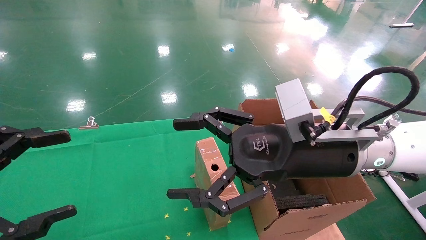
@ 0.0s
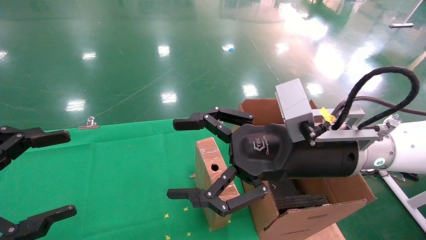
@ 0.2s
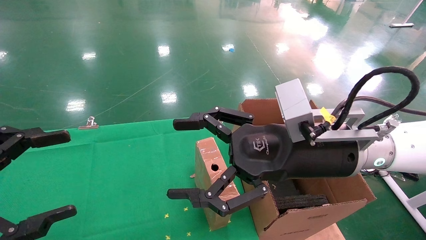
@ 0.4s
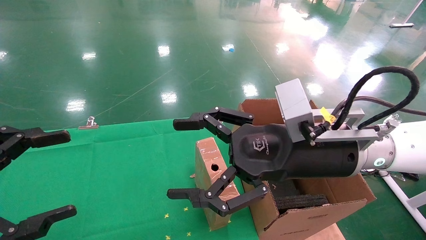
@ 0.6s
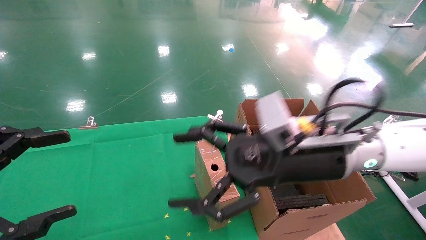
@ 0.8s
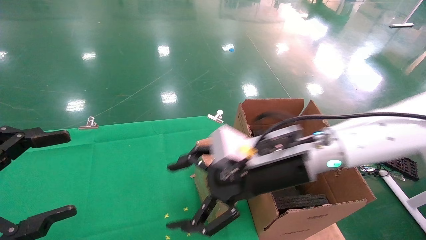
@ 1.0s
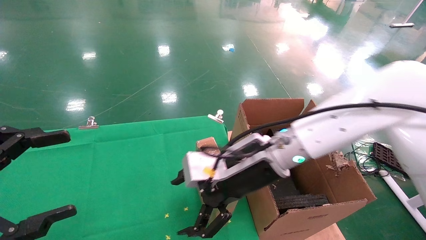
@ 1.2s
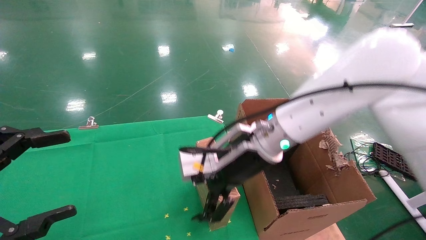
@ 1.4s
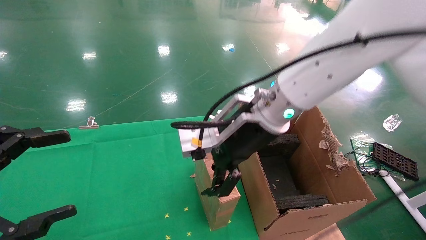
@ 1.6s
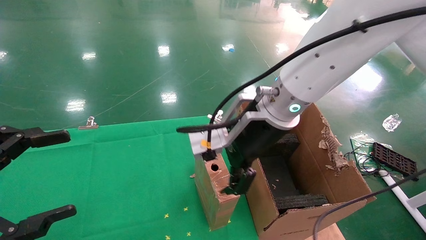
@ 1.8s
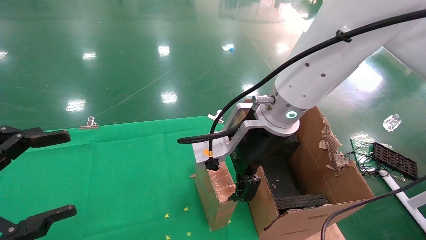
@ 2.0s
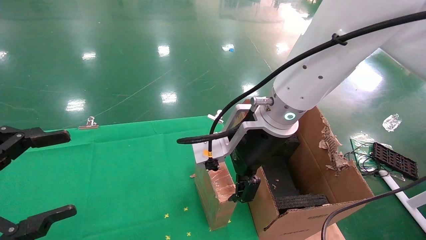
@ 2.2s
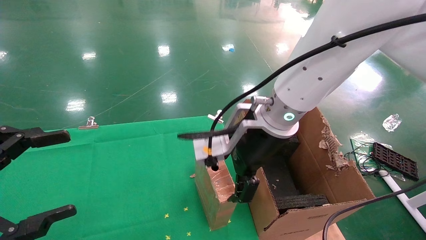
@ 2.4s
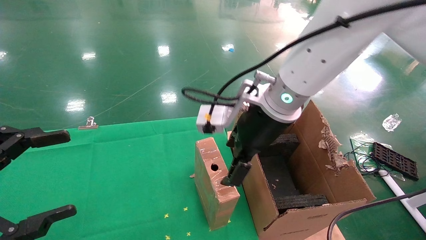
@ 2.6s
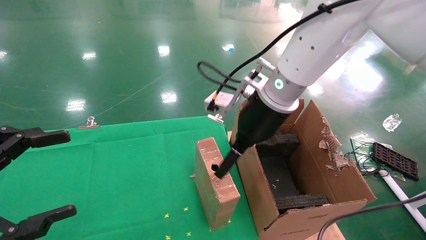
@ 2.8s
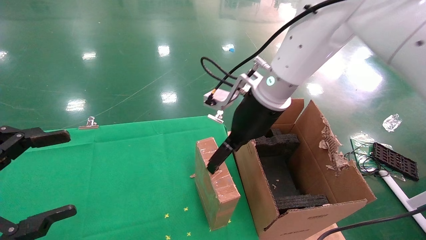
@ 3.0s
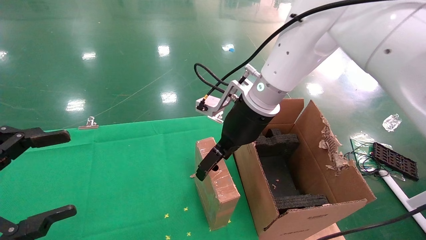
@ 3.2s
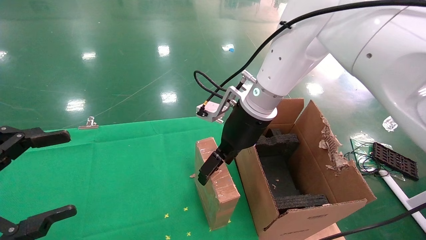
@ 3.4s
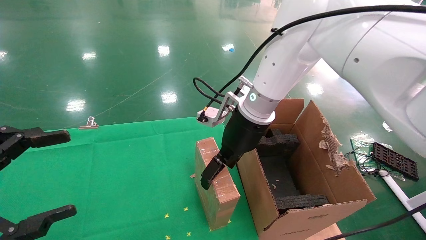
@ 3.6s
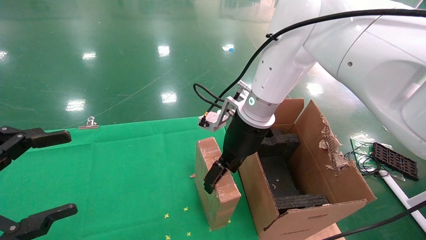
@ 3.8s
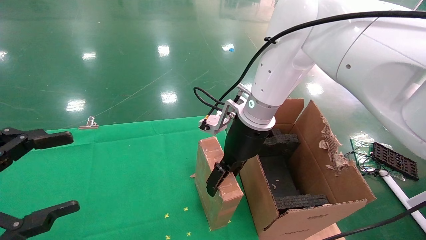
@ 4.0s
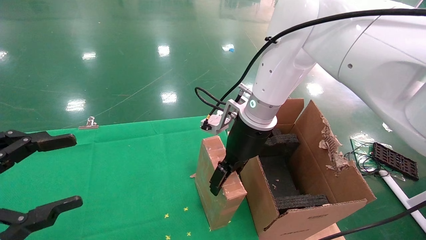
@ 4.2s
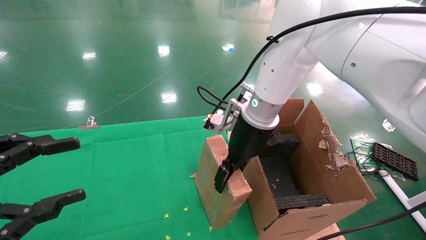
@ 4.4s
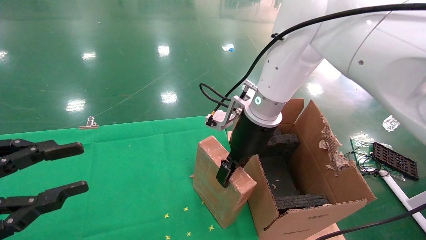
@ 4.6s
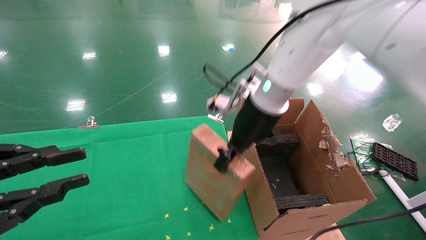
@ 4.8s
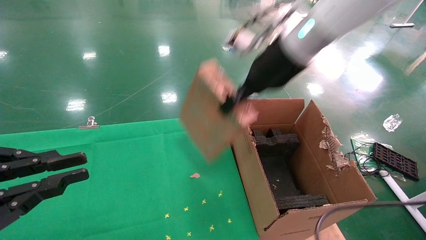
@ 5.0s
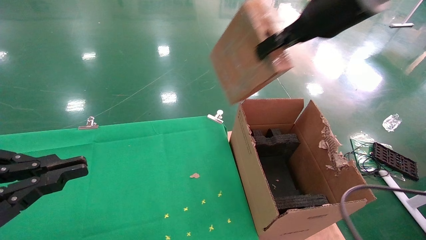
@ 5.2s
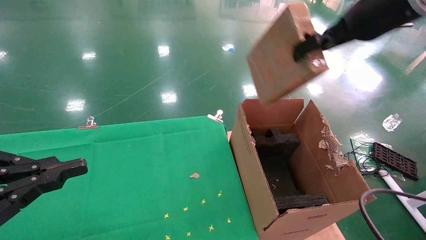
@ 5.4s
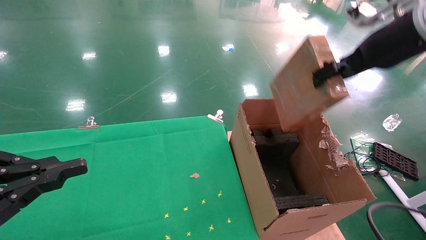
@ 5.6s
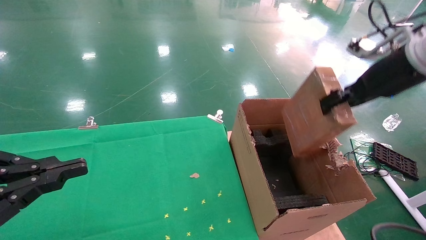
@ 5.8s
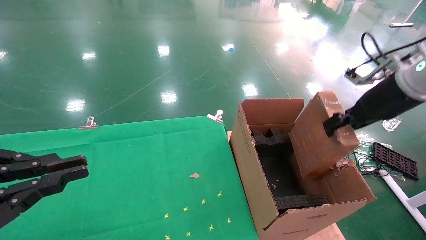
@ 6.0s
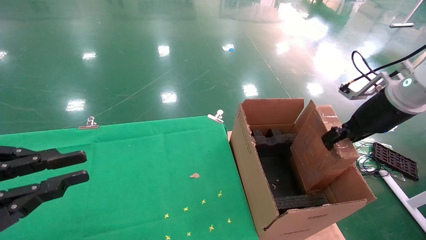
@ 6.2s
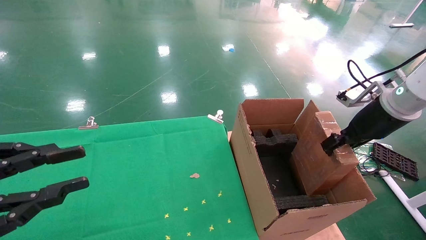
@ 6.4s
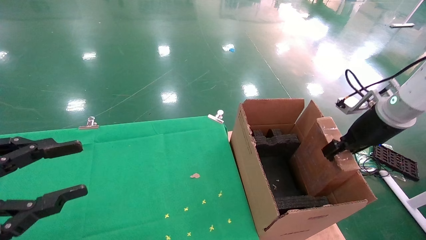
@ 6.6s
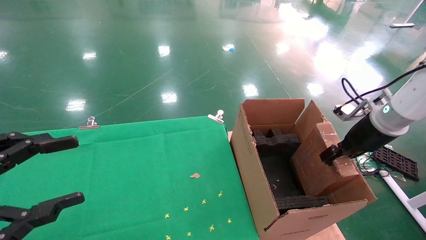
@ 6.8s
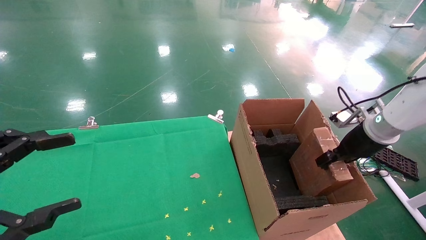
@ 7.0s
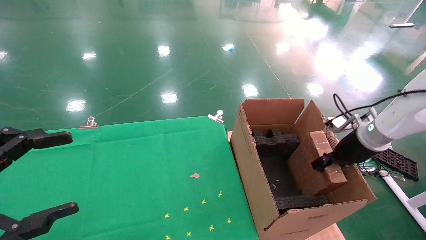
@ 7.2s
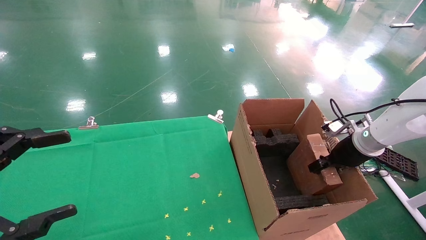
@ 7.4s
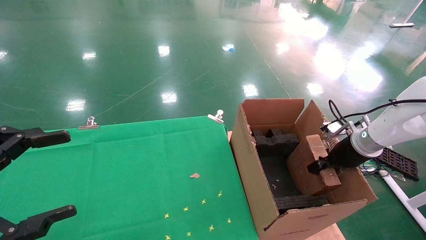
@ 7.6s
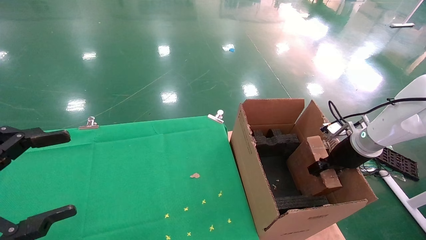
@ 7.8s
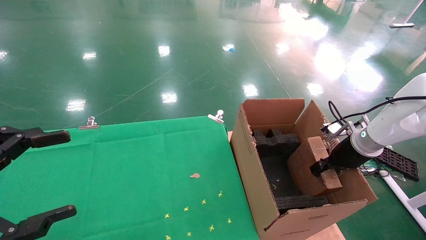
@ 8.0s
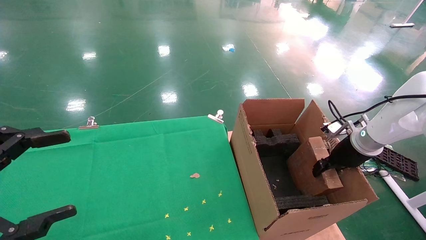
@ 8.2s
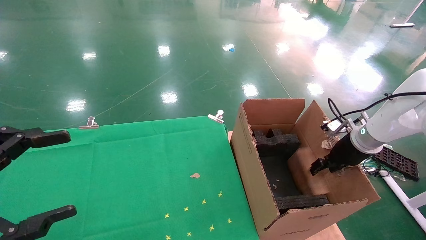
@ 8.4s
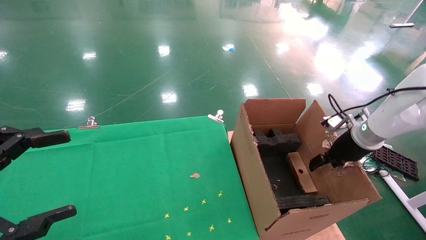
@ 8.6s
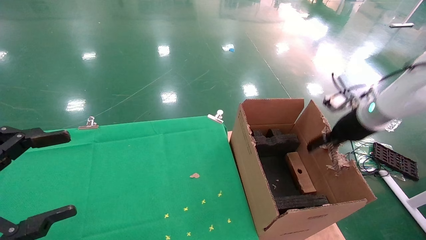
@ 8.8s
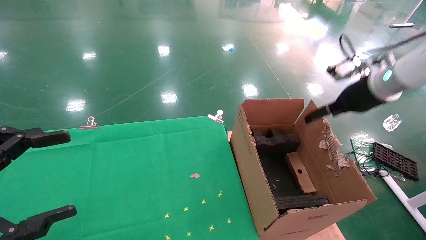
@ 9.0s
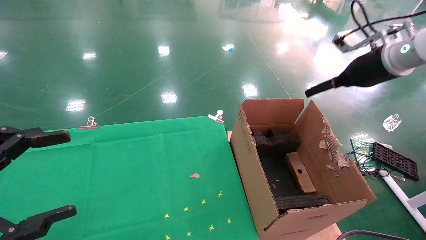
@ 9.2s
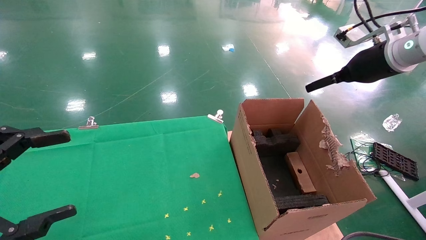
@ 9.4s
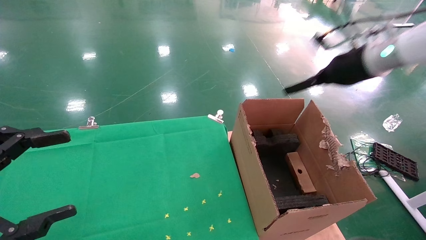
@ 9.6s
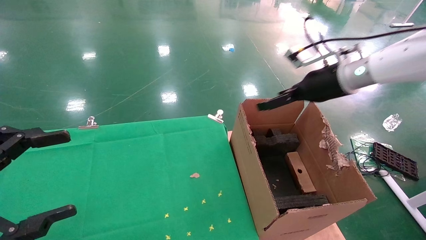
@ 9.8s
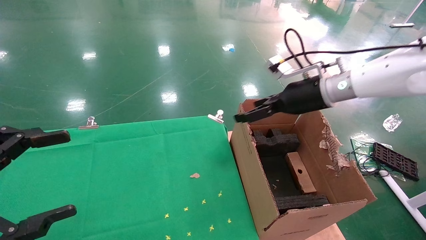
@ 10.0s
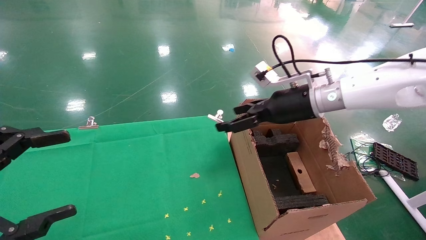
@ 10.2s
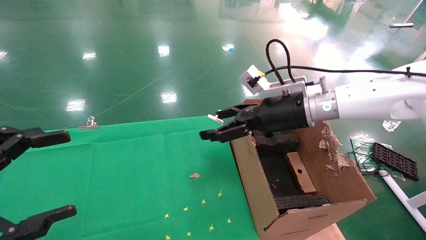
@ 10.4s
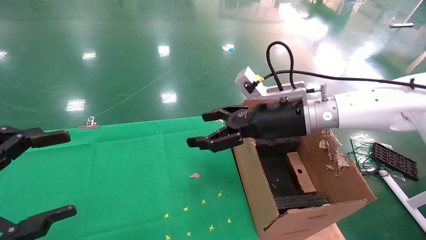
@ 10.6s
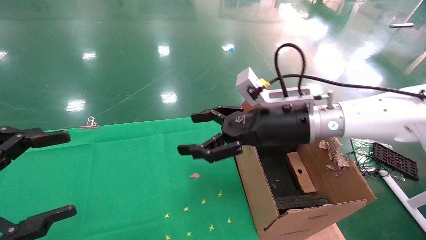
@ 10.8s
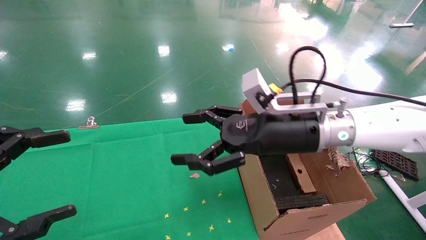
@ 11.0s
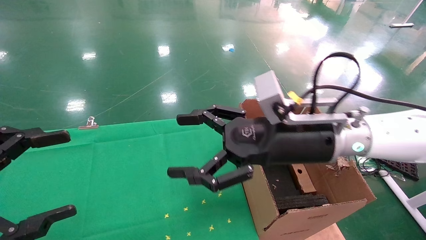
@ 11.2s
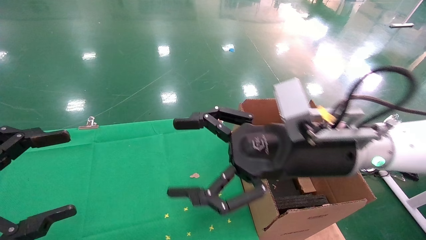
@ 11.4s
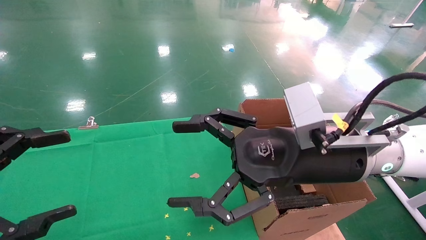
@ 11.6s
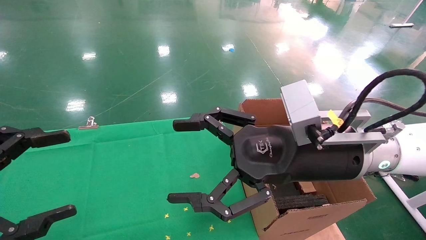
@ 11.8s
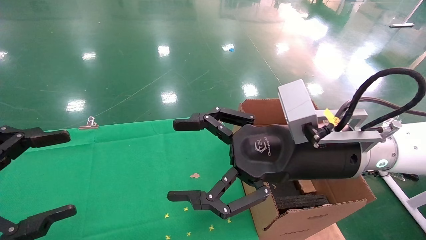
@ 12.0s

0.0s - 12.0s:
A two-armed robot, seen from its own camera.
Task of the whole recording: using a robotic arm to pick up a cardboard box and palace it the carton.
Step, 0.8s - 4.8s: Pick up the mouse and the power cord paper box.
Step, 5.0s - 8.4s: Place the mouse and the power cord paper box into the container.
0.0s - 1.6s: The right gripper shifts about 10 cm to the left and forward.
1.6s - 3.0s: The right gripper shifts about 5 cm forward.
3.0s - 4.4s: The right gripper closes up.
4.4s - 6.0s: The right gripper travels to the right by about 25 cm, and closes up. Meanwhile the left gripper closes its fingers.
6.0s - 7.6s: The right gripper heads downward, covering approximately 15 cm, while the left gripper opens its fingers.
7.6s - 9.0s: The right gripper is displaced upward by some 15 cm, and opens its fingers.
9.0s - 10.4s: The right gripper travels to the left by roughly 20 cm.
10.4s - 12.0s: The right gripper heads backward, covering about 15 cm.

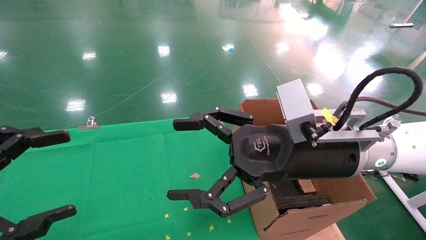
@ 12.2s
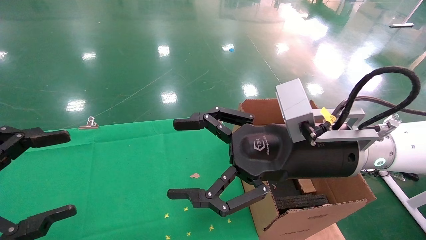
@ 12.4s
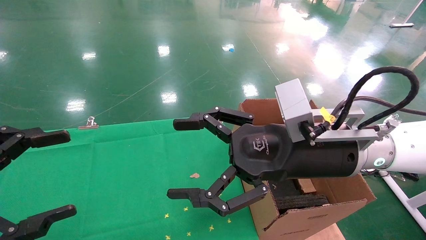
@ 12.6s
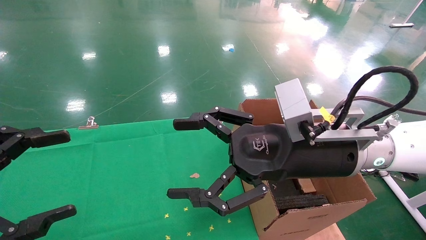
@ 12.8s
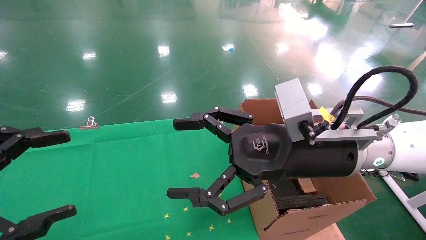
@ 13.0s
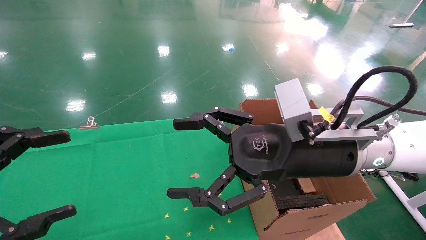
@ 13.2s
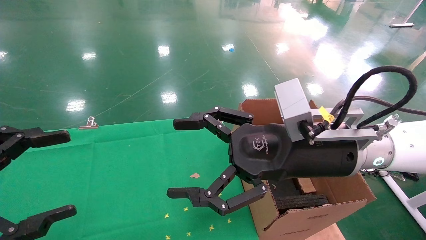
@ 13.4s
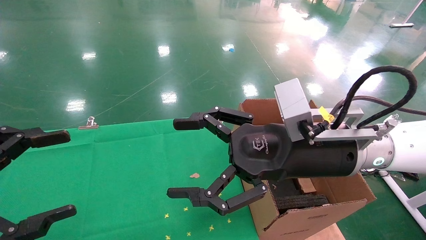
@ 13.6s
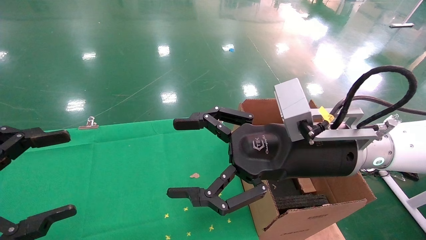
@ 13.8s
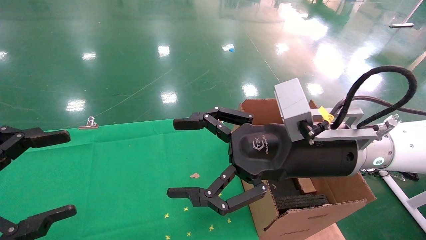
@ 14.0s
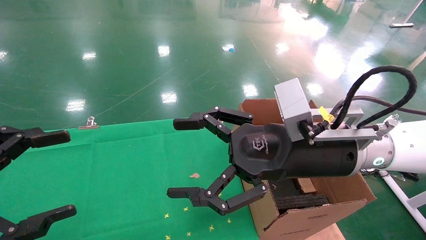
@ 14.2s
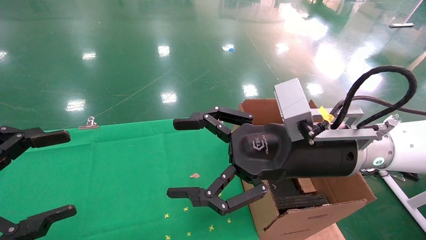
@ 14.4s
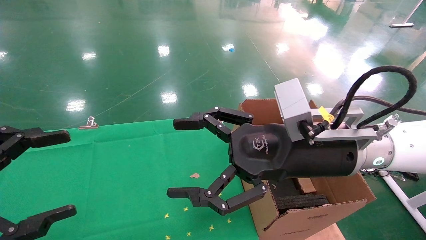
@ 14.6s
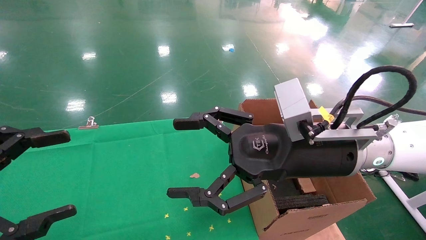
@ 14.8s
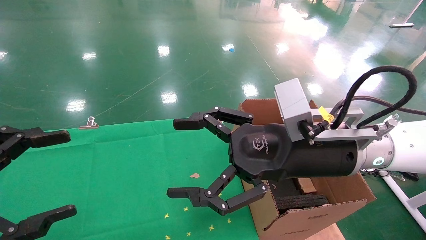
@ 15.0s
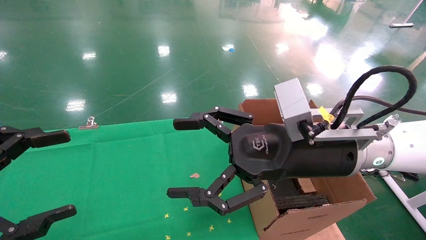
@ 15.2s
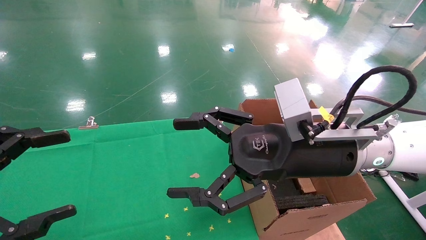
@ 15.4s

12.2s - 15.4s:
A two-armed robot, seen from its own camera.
Task of the whole recording: using a robotic arm to pick up a cardboard box and palace it the carton.
12.2s - 15.4s: The two grippers keep their place.
